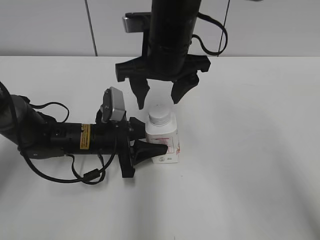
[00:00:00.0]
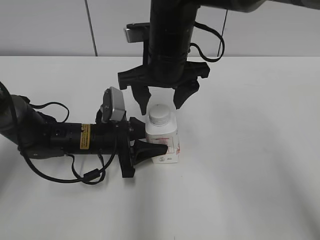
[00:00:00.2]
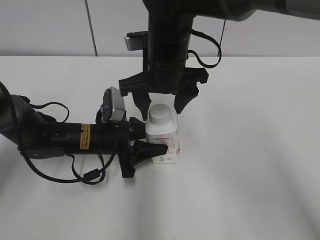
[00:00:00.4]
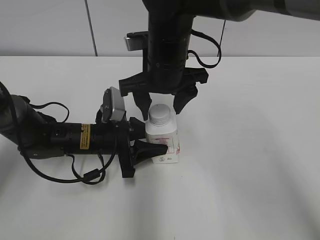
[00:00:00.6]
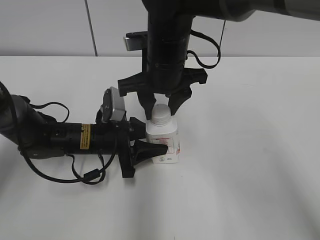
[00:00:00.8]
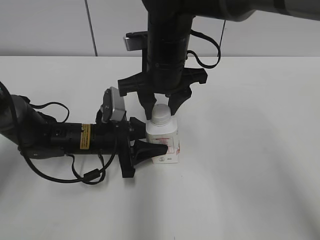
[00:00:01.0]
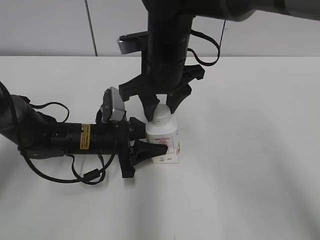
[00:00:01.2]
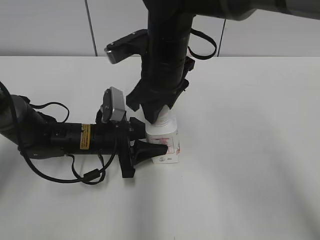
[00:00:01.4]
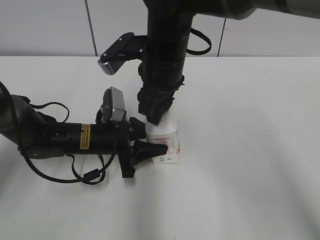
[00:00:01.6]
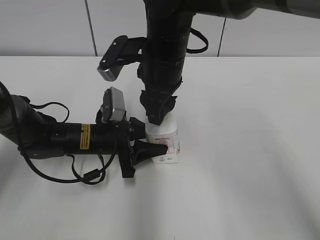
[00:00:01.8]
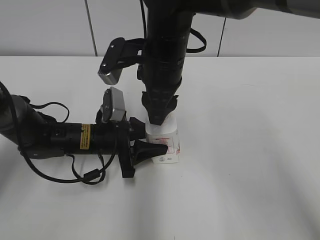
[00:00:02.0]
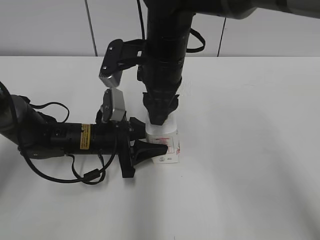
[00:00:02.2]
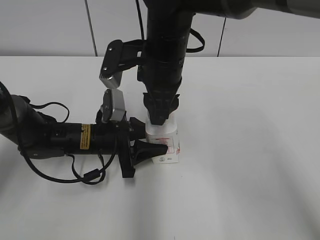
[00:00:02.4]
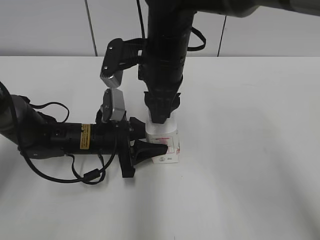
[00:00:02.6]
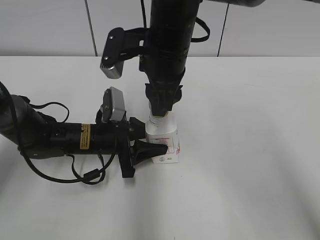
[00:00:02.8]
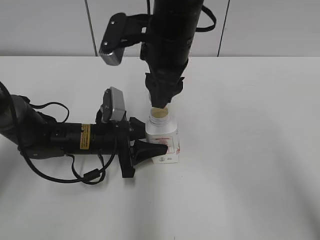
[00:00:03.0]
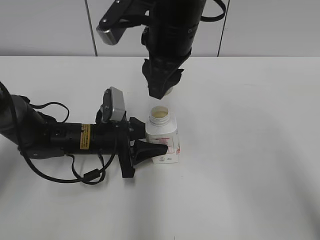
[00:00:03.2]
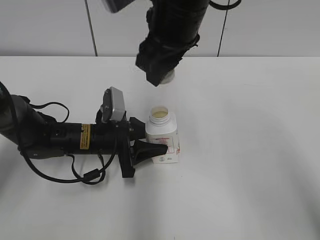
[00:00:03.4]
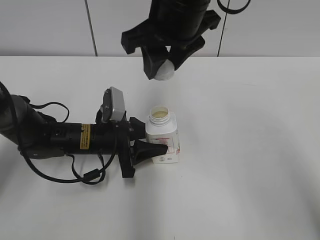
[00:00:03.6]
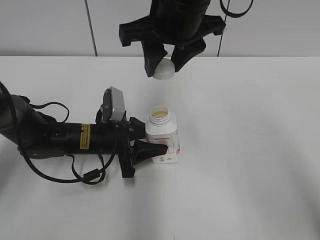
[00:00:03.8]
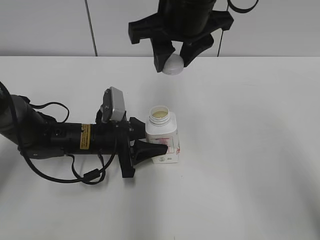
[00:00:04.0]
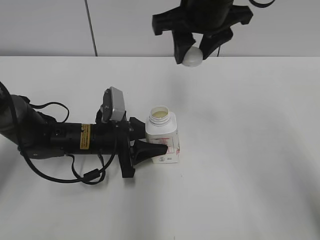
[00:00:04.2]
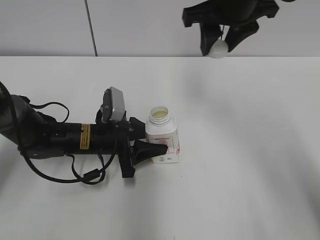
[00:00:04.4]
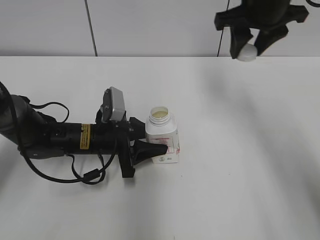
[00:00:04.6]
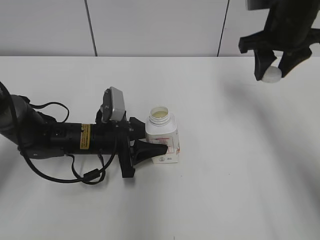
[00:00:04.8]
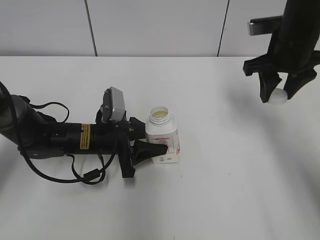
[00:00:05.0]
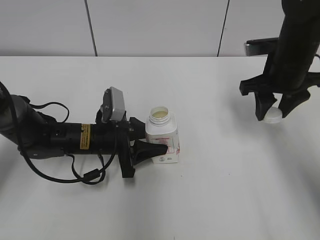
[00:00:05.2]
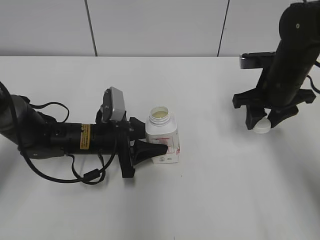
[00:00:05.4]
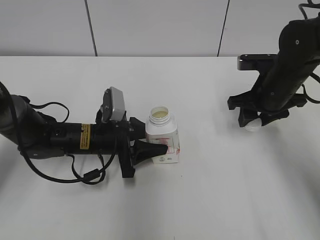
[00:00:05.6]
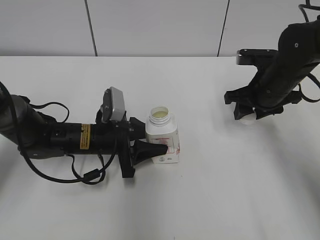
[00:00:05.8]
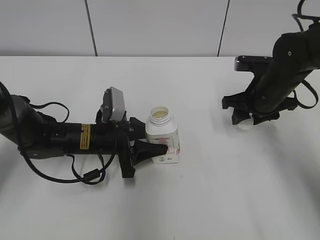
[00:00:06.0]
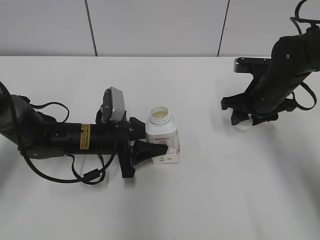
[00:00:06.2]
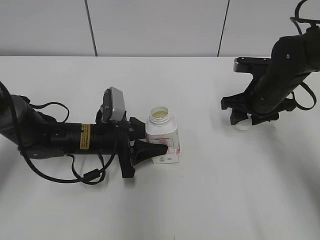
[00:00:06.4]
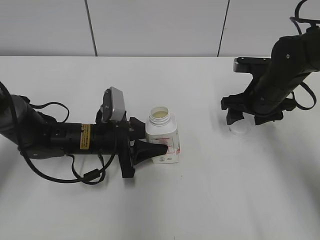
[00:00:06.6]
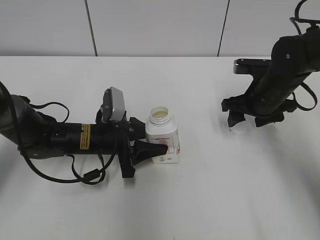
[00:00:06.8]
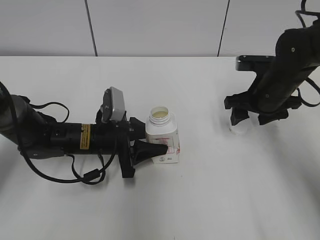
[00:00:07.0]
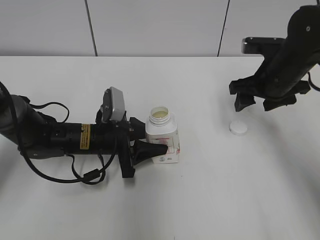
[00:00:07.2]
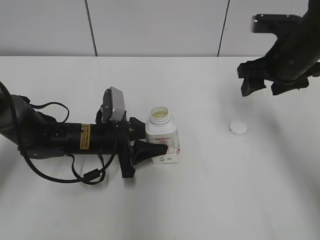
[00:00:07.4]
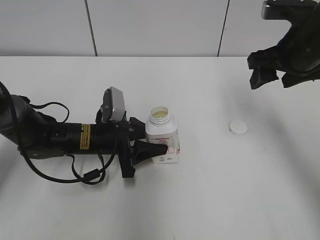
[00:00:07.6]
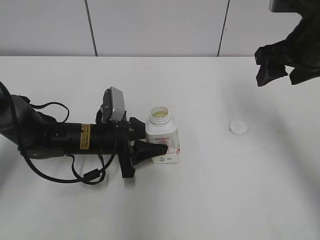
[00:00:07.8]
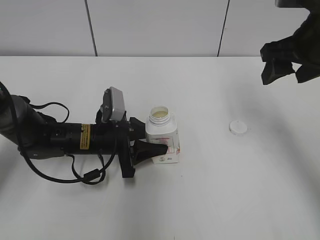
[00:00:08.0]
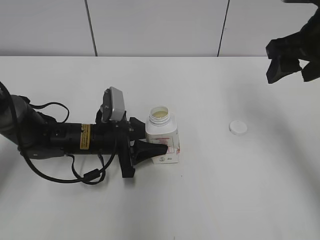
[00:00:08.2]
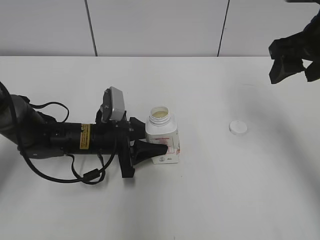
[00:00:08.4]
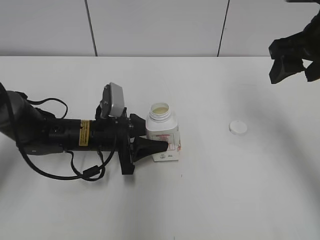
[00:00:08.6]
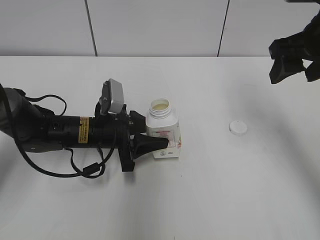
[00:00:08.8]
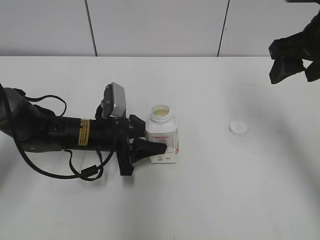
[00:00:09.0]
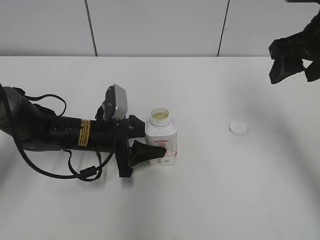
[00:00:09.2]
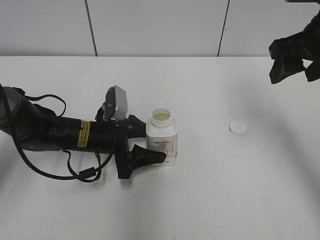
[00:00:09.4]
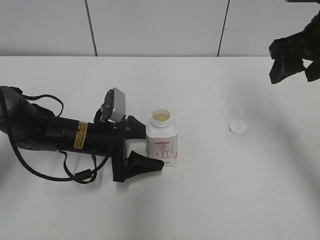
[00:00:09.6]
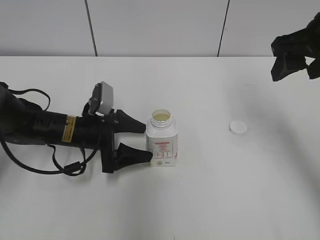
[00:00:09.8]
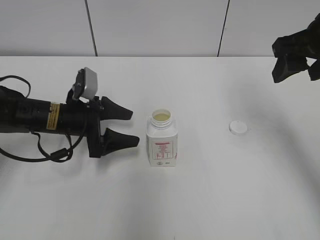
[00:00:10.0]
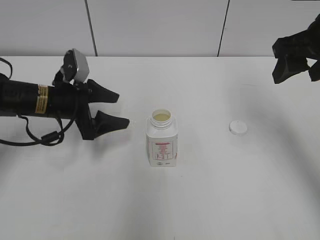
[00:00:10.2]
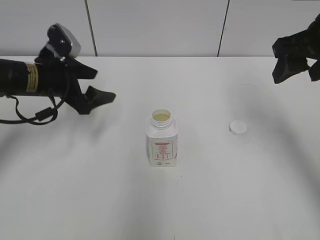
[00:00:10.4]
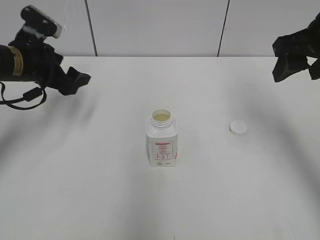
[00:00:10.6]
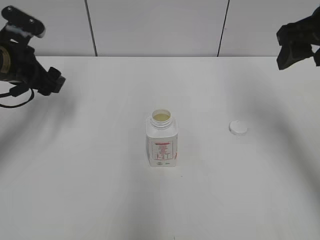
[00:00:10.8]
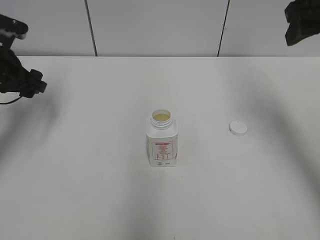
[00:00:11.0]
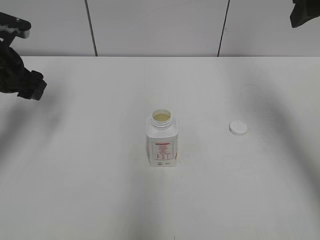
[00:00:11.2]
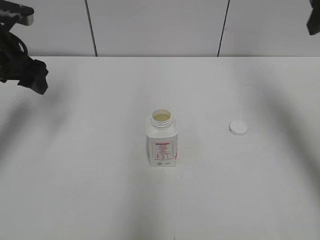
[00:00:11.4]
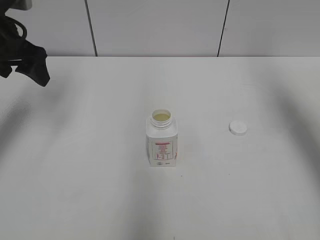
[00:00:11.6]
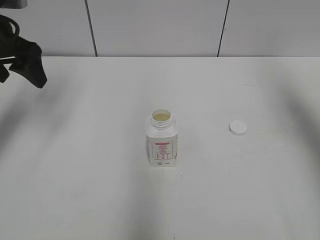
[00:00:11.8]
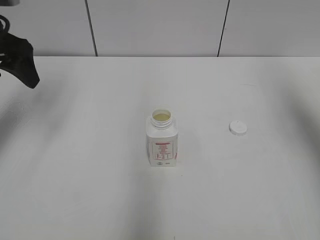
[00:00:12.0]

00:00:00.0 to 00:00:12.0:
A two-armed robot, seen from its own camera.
Step, 00:00:00.0 to 00:00:02.8: Unscrew the bottle cap with the right gripper while holding the bottle with the left gripper.
Step, 00:00:03.0 to 00:00:06.8: Place the bottle cap on the table with the right gripper.
Step, 00:00:07.0 to 00:00:09.6: Place the bottle on the table with the left gripper.
00:00:00.0 to 00:00:01.6: The right gripper closes its fingers.
00:00:03.0 to 00:00:04.4: The right gripper is displaced to the right and upward by roughly 10 cm.
00:00:04.4 to 00:00:06.0: The right gripper goes about 20 cm downward and to the right.
00:00:06.0 to 00:00:07.6: The right gripper travels upward by some 10 cm, and opens up.
00:00:07.6 to 00:00:09.0: The right gripper ends up approximately 5 cm from where it was.
00:00:09.0 to 00:00:10.4: The left gripper shifts roughly 10 cm upward and to the left, and opens up.
00:00:10.4 to 00:00:12.0: The left gripper shifts approximately 15 cm upward and to the left. The right gripper is displaced to the right and upward by roughly 10 cm.

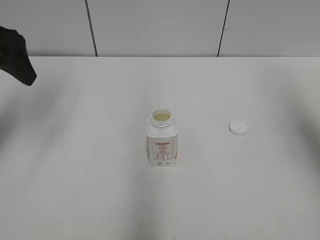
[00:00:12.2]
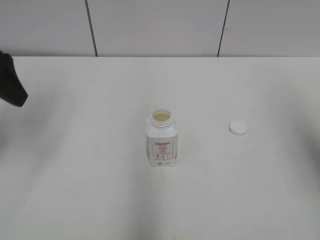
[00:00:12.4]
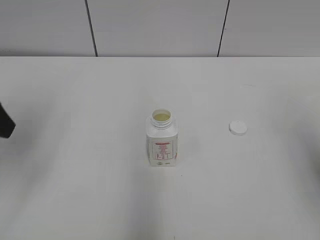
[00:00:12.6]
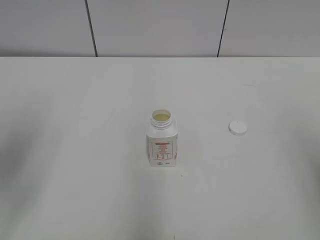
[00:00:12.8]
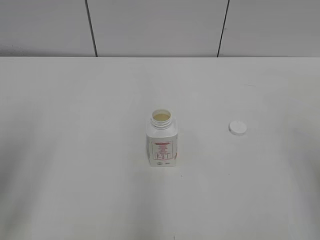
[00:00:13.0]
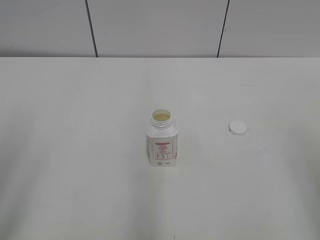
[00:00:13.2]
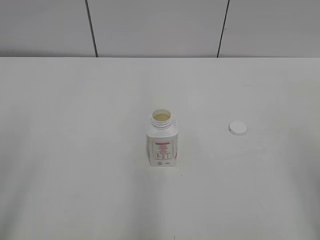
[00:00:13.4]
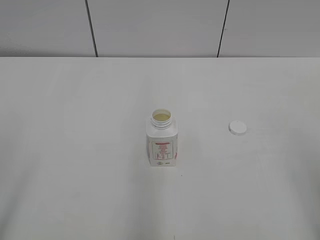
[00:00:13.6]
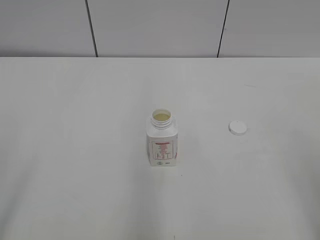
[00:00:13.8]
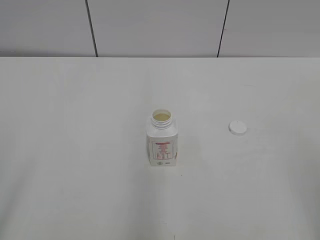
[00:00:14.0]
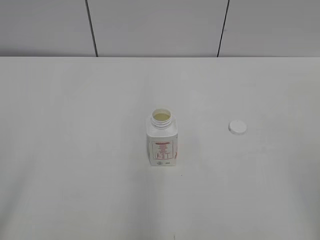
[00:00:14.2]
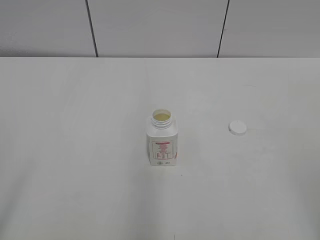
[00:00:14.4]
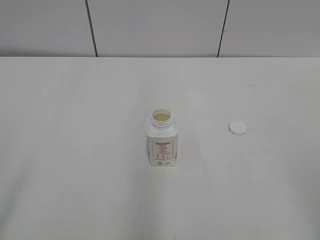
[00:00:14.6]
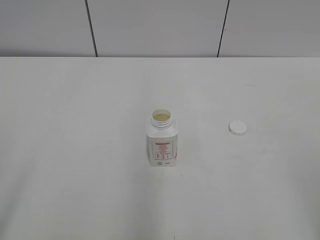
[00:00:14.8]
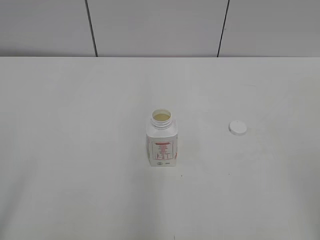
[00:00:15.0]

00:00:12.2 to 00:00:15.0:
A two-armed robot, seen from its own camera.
00:00:12.2 to 00:00:13.6: The left gripper is displaced backward by about 25 cm. The right gripper heads backward and downward, covering some 20 cm.
